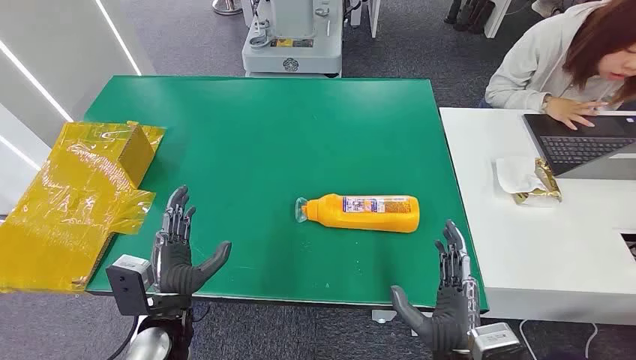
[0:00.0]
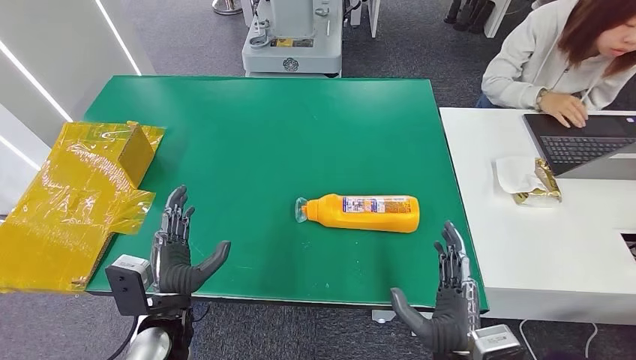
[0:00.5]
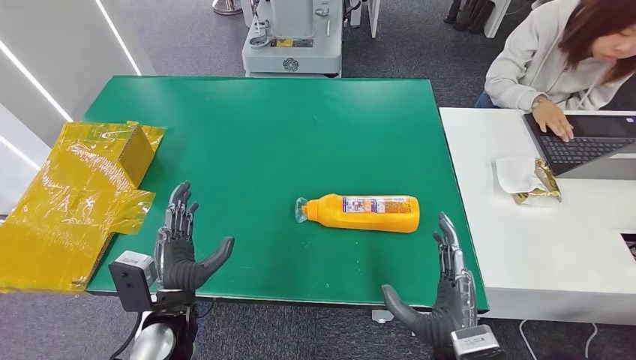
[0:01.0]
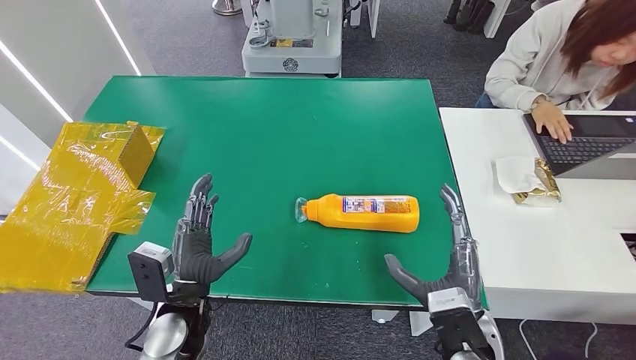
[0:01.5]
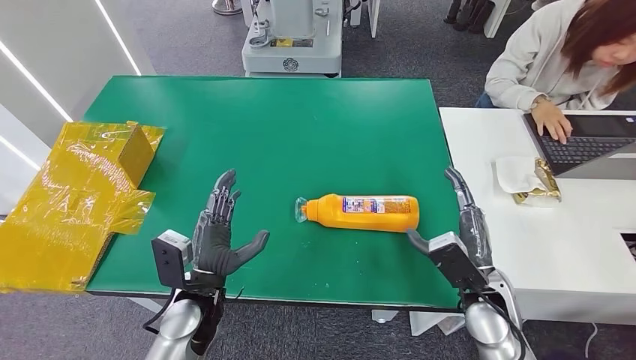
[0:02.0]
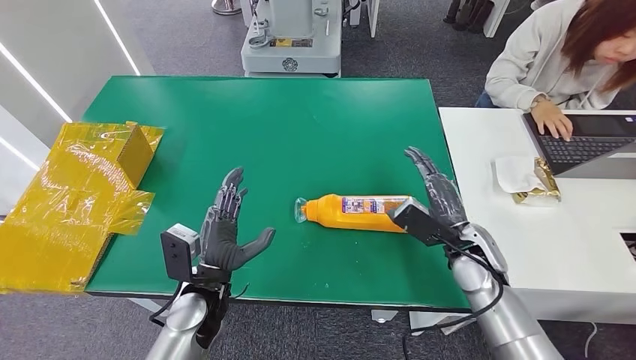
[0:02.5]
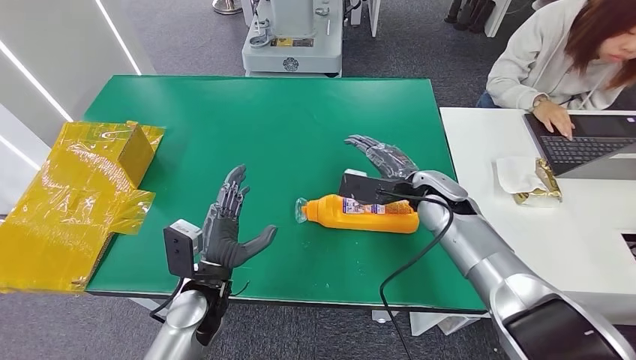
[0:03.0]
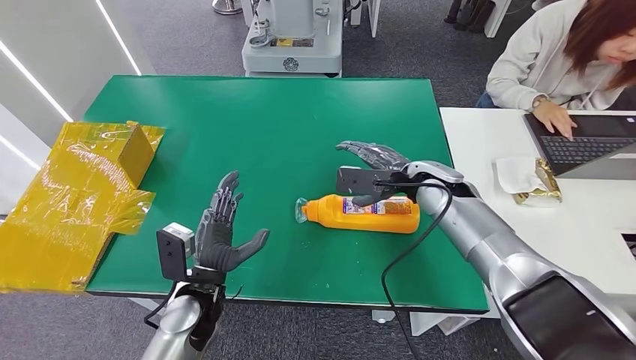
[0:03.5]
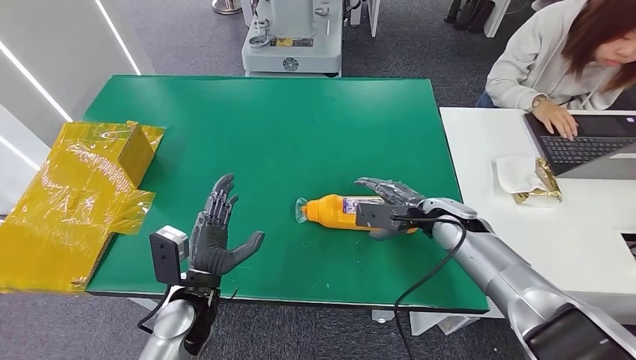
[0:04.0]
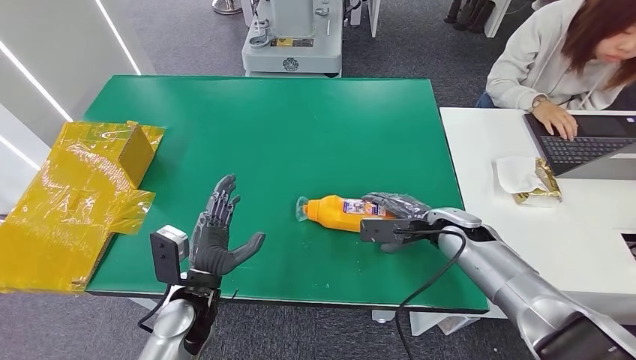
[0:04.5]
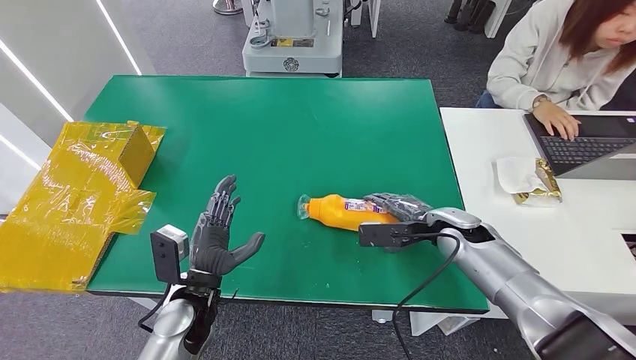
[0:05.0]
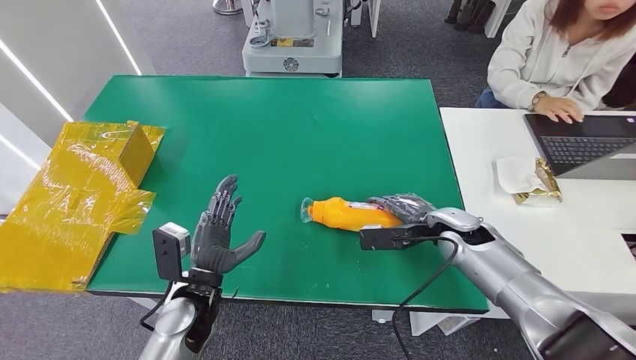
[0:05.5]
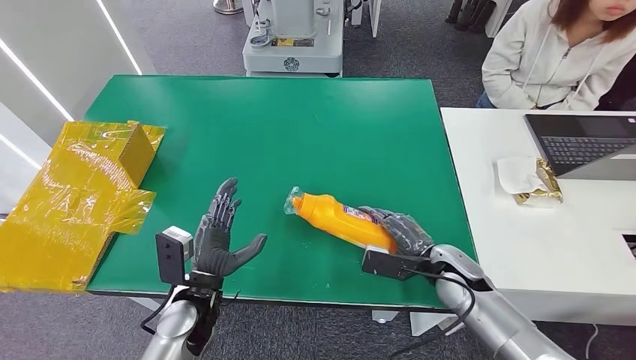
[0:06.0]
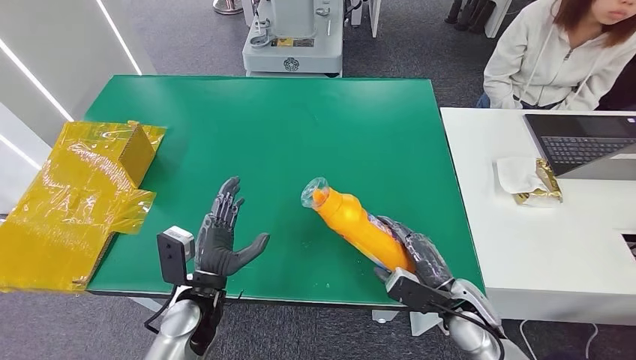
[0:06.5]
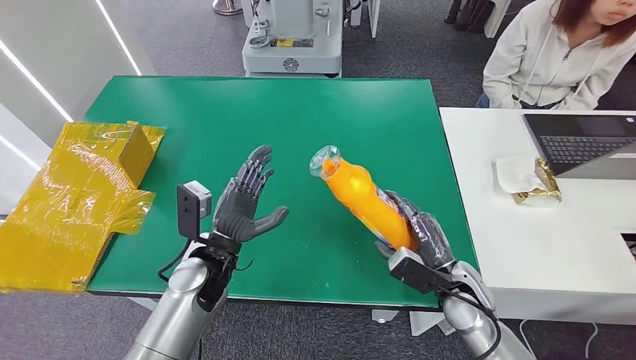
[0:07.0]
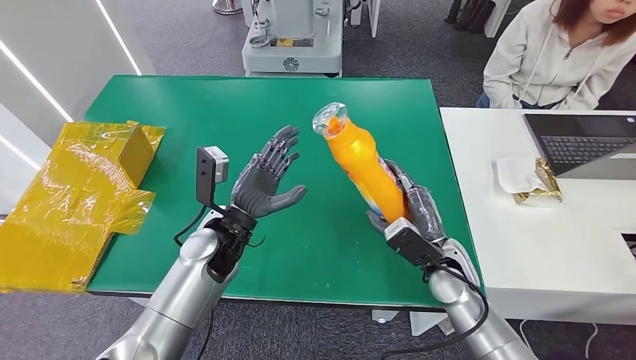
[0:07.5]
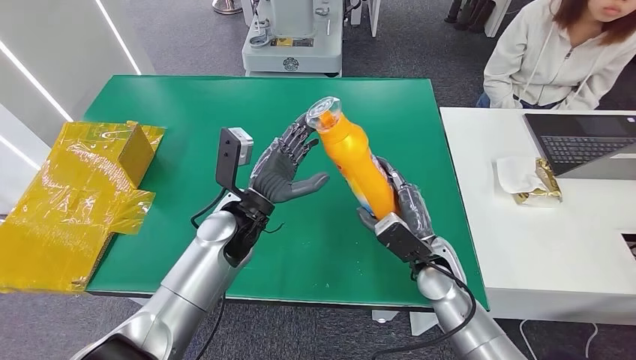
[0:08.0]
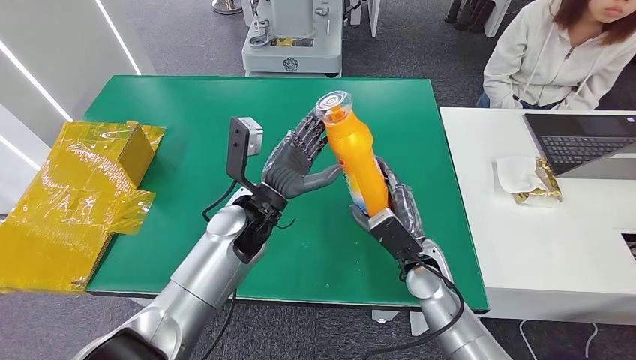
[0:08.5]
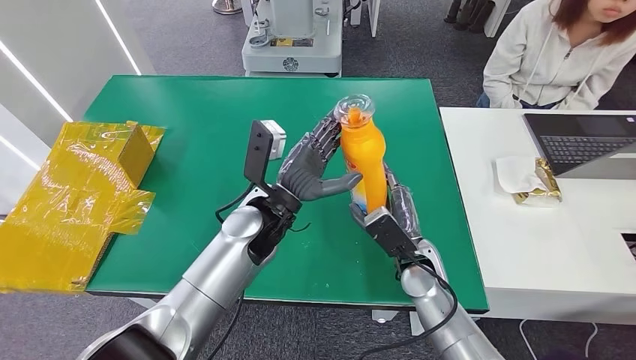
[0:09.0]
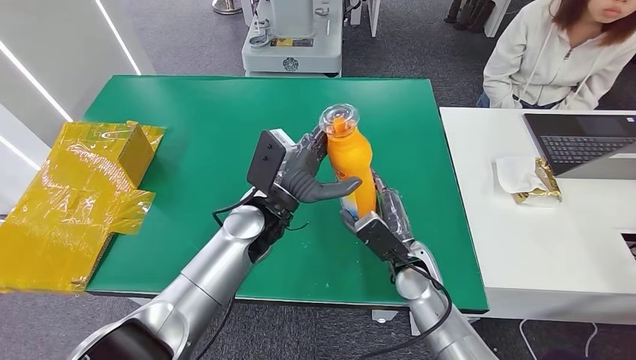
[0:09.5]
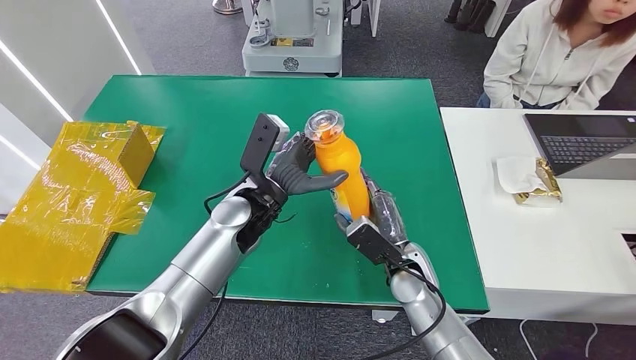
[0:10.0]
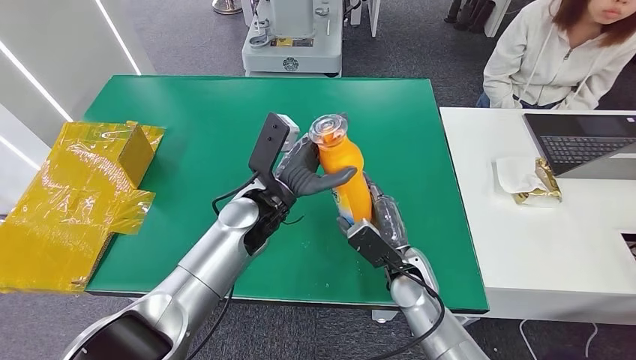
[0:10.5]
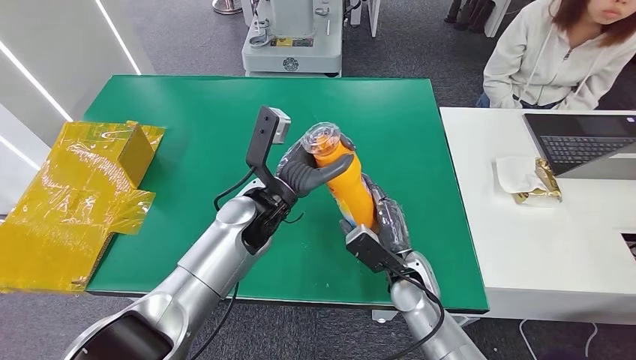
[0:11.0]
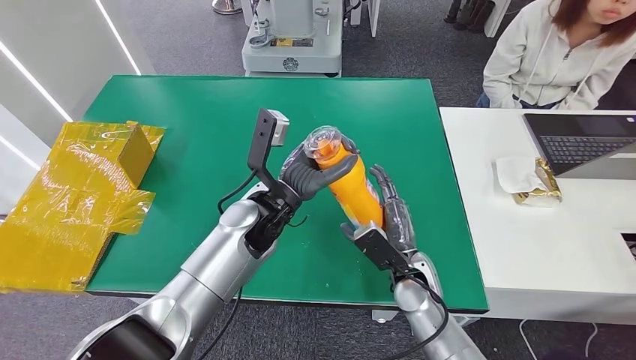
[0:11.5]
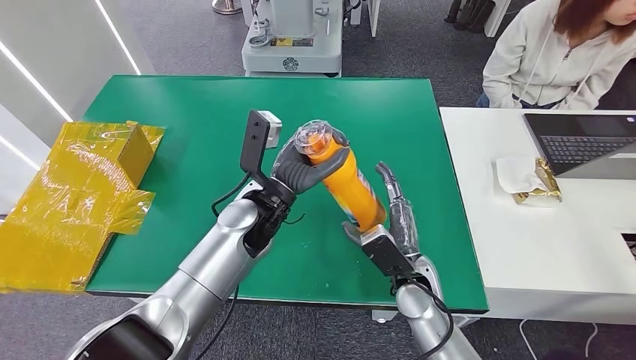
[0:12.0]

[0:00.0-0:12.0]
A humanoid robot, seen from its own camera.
Step, 0:00.0 to 0:06.5: Pick up the bottle from the table.
0:02.0 to 0:04.0: The right hand moves forward, some 15 cm.
0:04.0 to 0:06.0: The right hand shifts approximately 10 cm backward and downward.
0:06.0 to 0:08.0: The right hand changes place by some 5 cm, while the left hand moves forward, upward and to the right, roughly 15 cm.
0:08.0 to 0:12.0: The hands stay close to where they were, moving slightly.

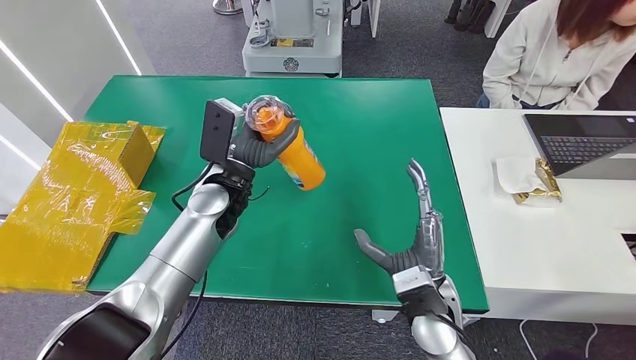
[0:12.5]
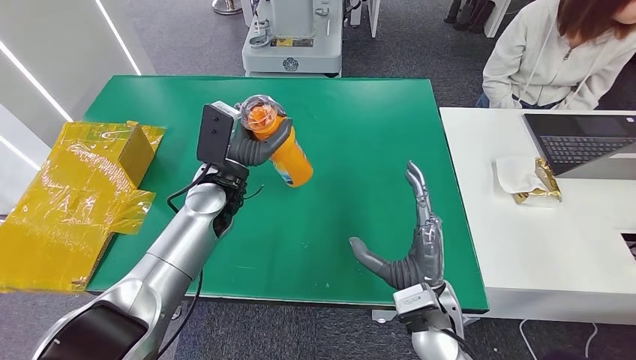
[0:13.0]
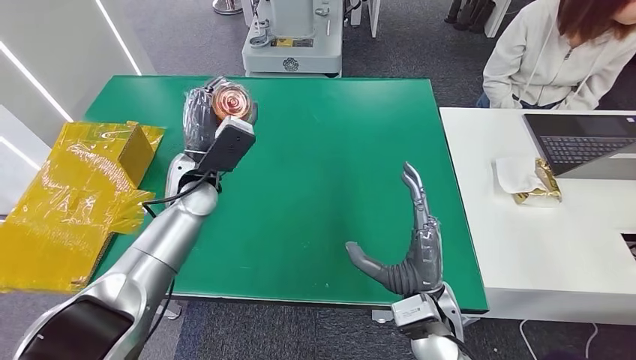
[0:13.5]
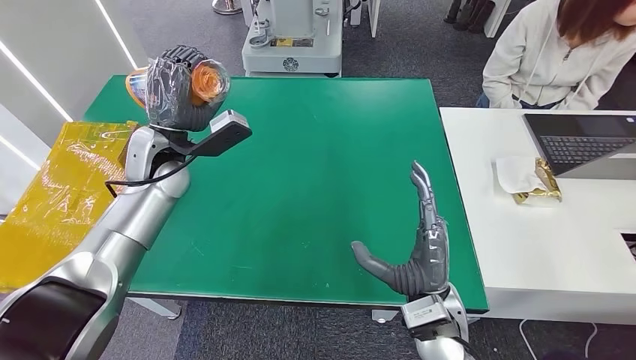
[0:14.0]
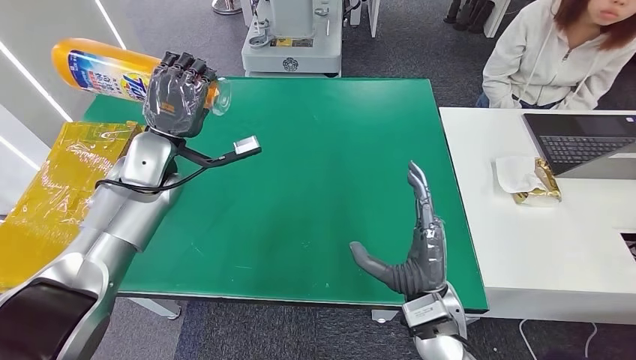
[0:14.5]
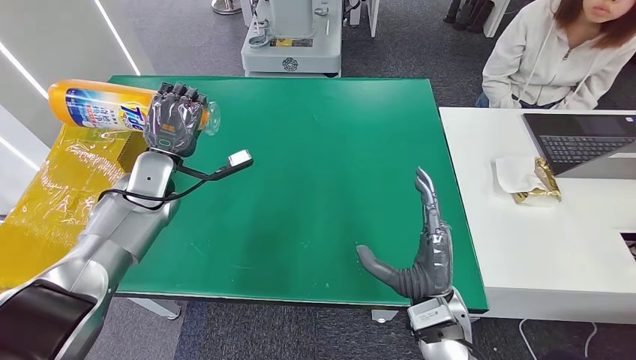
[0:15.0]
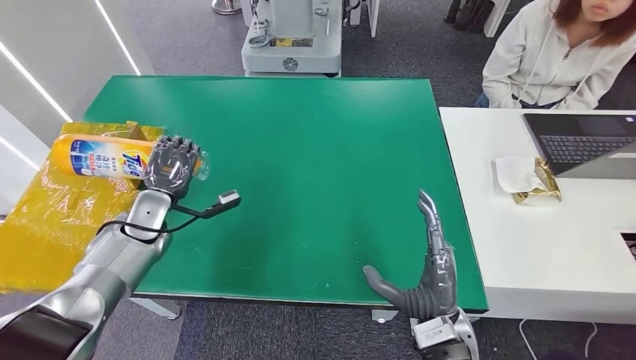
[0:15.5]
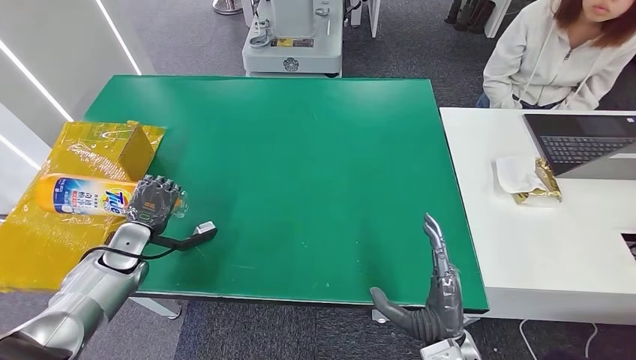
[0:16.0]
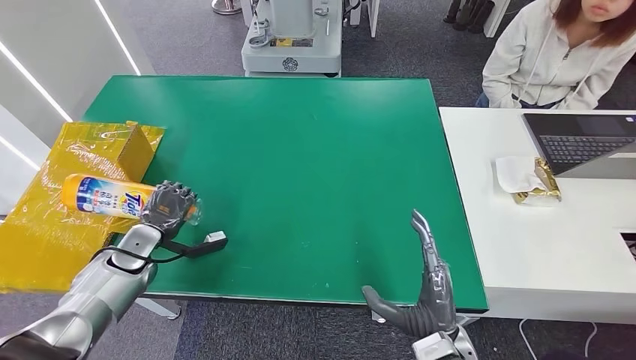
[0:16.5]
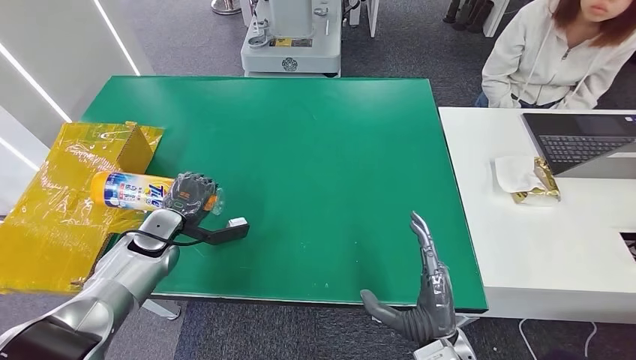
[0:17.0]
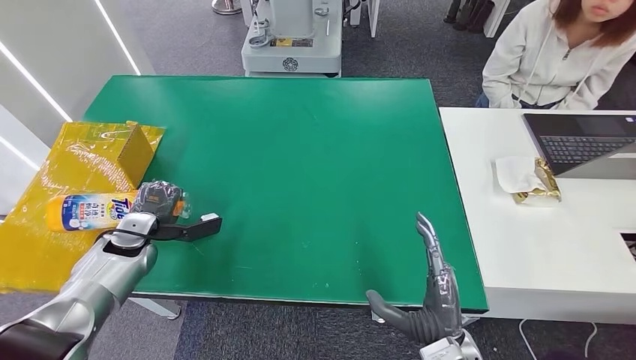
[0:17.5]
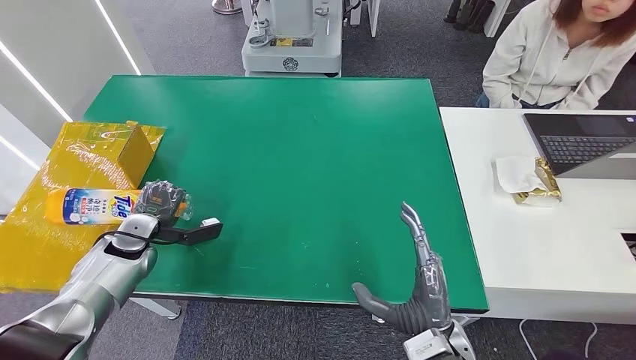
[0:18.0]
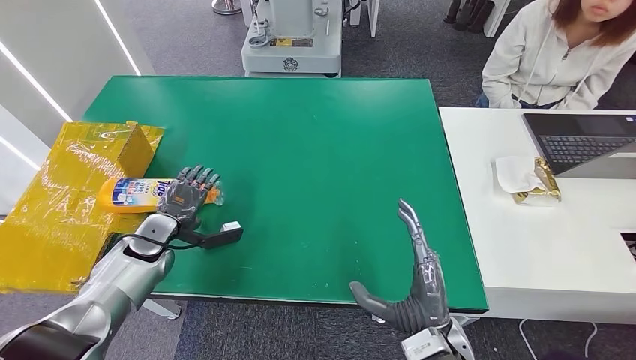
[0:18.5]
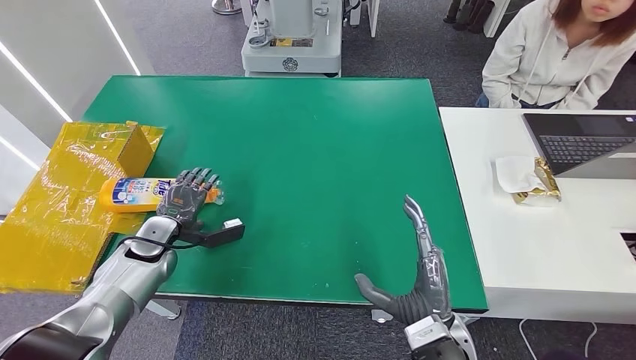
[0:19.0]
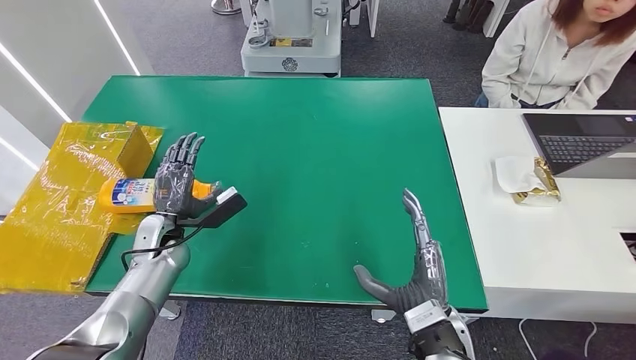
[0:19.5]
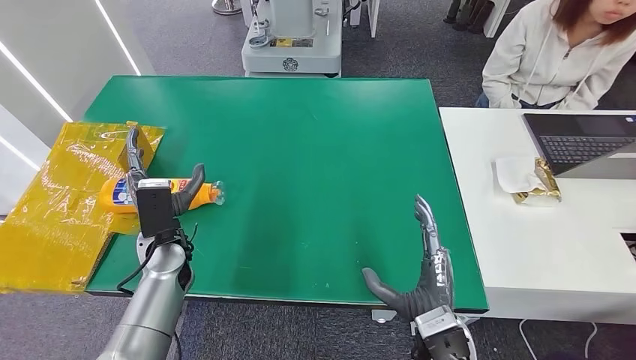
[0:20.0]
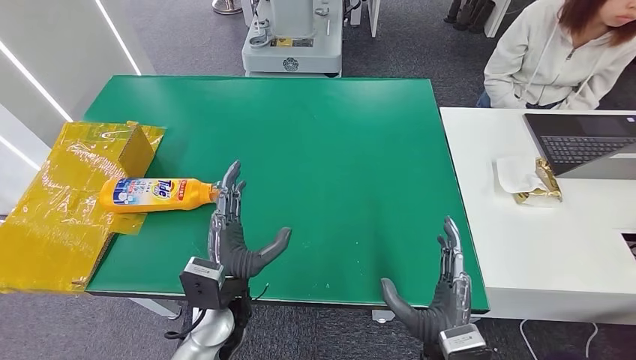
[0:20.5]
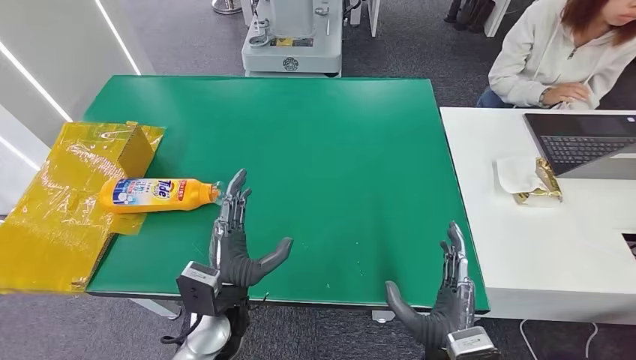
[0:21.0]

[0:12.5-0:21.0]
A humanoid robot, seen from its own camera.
Step, 0:12.5 to 0:20.5: Turn the bottle to the front side.
0:14.5 to 0:16.5: The left hand is displaced downward, to the left and backward by approximately 25 cm, while the right hand is displaced backward and downward by about 5 cm.
0:16.5 to 0:19.0: The left hand moves left and right over roughly 5 cm, changing direction 2 times.
0:19.0 to 0:21.0: The left hand is displaced to the right and backward by roughly 25 cm.
